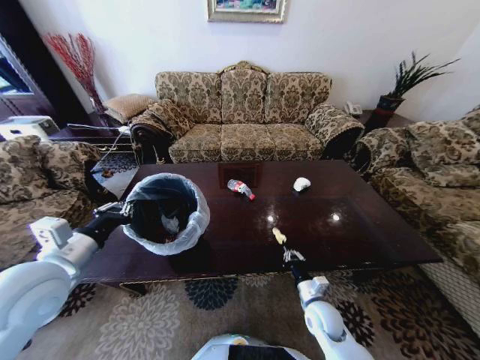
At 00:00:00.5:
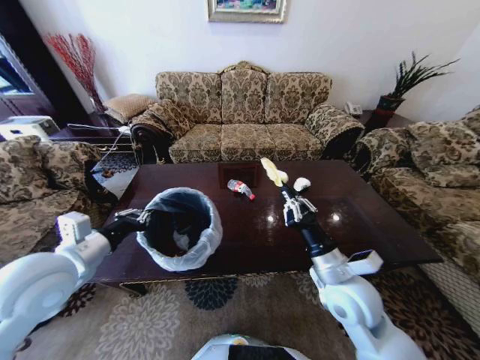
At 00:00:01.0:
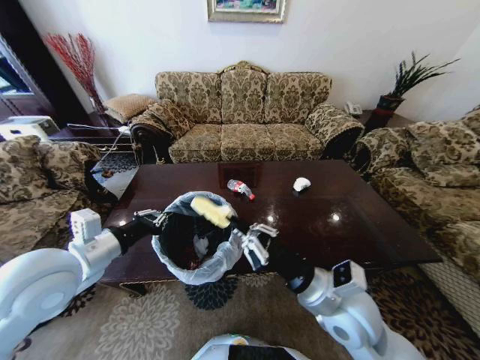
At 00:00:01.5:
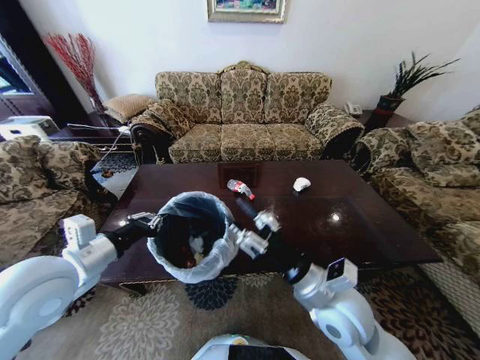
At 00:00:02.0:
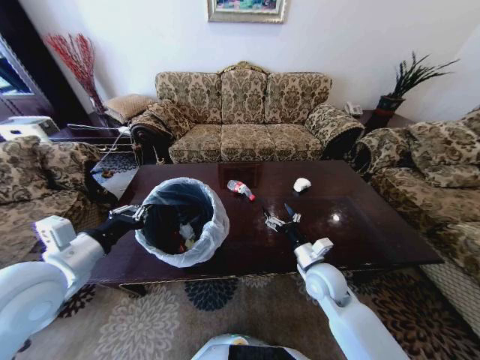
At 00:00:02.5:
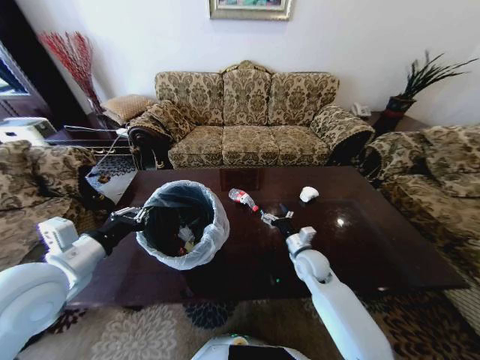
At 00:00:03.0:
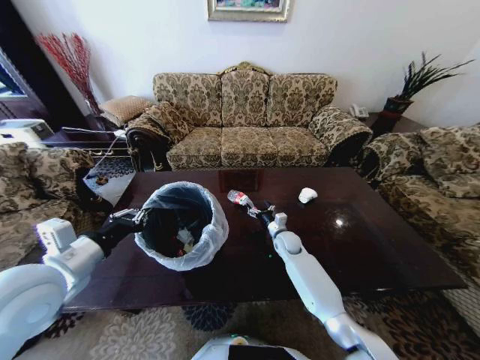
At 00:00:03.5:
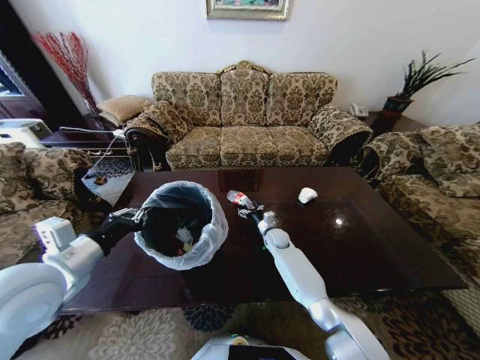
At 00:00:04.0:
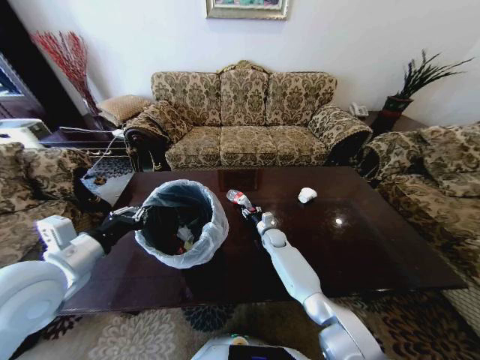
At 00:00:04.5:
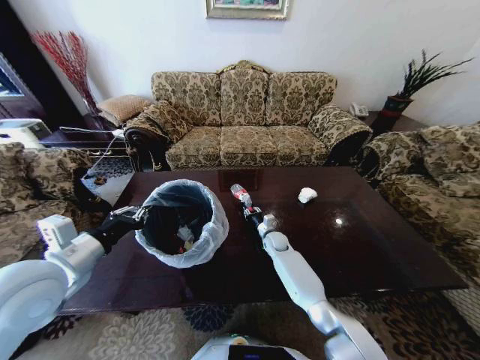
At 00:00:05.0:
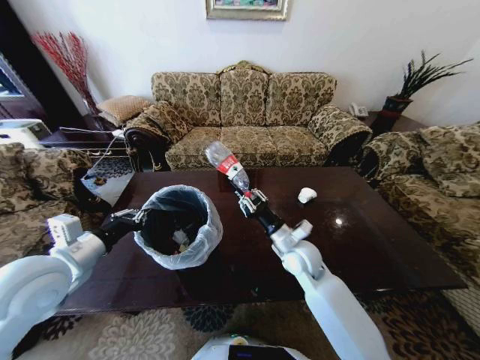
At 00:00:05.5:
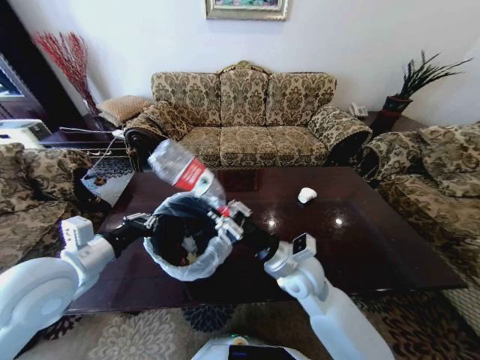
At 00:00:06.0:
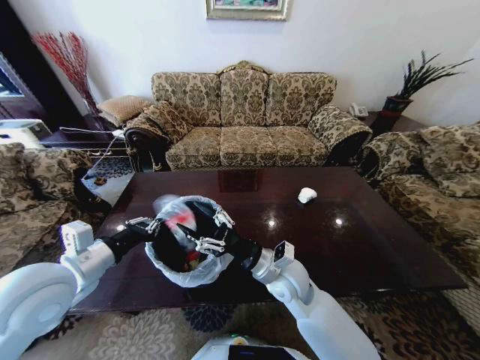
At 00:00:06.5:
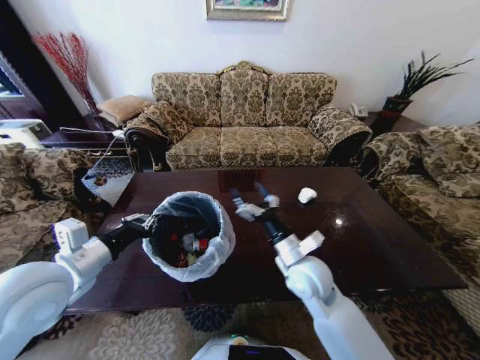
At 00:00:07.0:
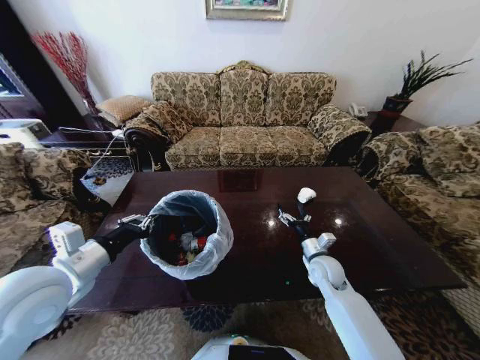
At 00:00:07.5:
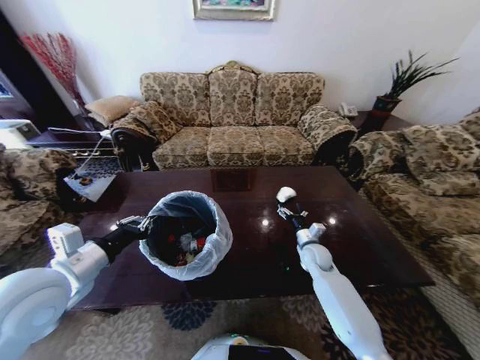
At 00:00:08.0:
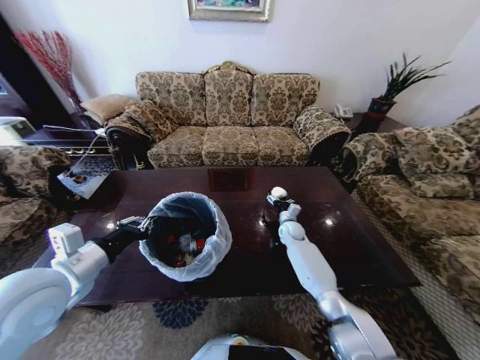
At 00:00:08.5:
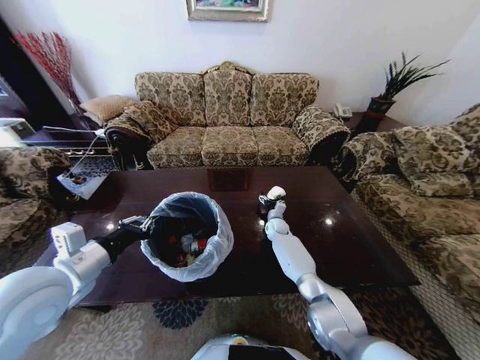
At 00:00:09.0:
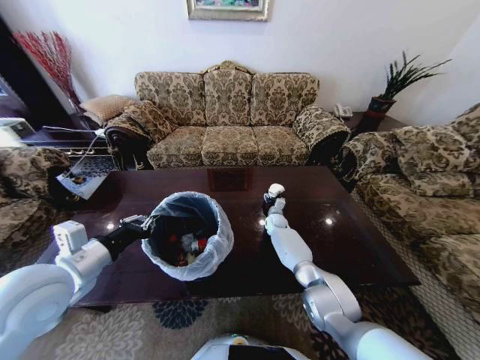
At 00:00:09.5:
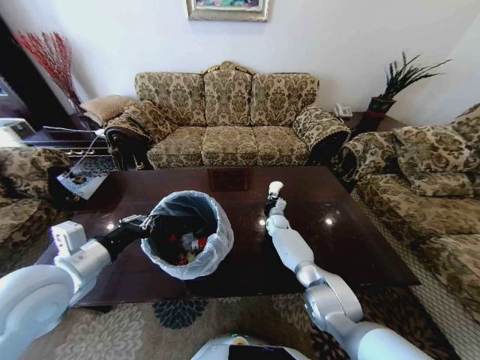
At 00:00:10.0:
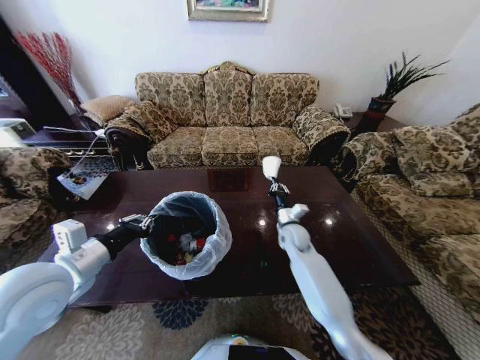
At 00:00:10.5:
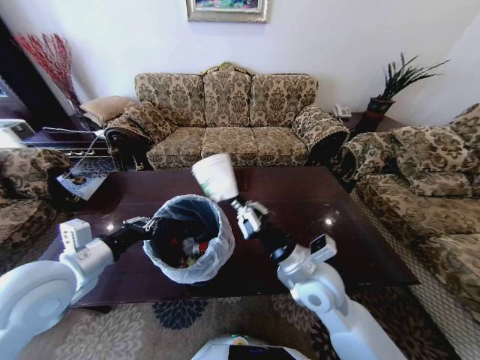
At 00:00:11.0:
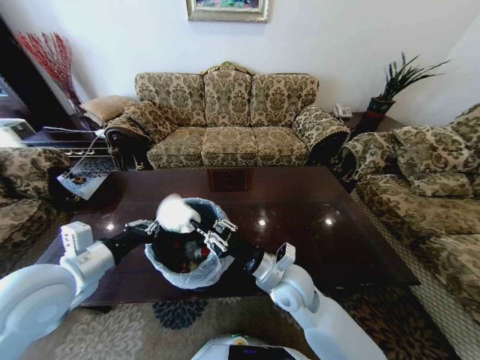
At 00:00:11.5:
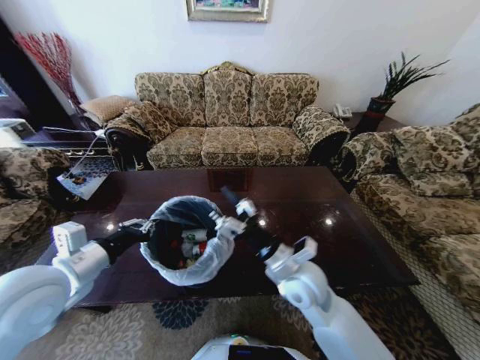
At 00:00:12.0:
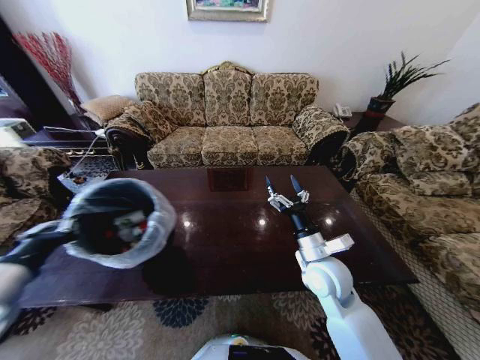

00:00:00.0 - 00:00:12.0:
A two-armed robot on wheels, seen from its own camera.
Task of the whole recording: Move to the front of the table and place the trash on the table into the trash bin.
00:00:00.0 - 00:00:02.0: The right gripper moves upward and forward, roughly 15 cm, and opens its fingers.
00:00:02.0 - 00:00:04.0: The right gripper is displaced forward and downward by roughly 25 cm, and closes its fingers.
00:00:04.0 - 00:00:06.0: The right gripper moves backward and upward, approximately 30 cm, and closes, then opens again.
00:00:06.0 - 00:00:08.0: The right gripper moves forward, downward and to the right, about 30 cm, and opens.
00:00:08.0 - 00:00:10.0: The right gripper travels upward and backward by roughly 10 cm, and closes.
00:00:10.0 - 00:00:12.0: The left gripper heads backward, covering roughly 5 cm. Meanwhile the right gripper goes about 20 cm backward and upward, and opens its fingers.

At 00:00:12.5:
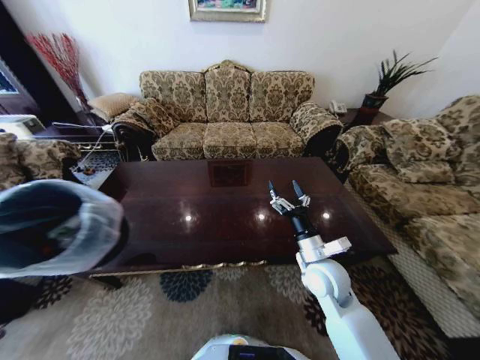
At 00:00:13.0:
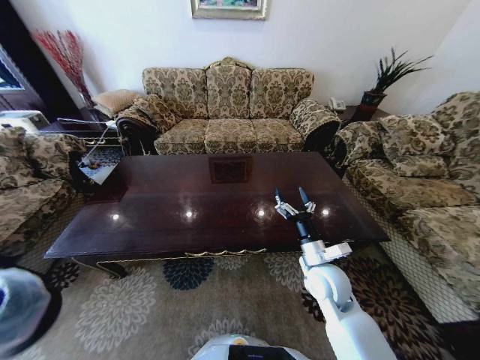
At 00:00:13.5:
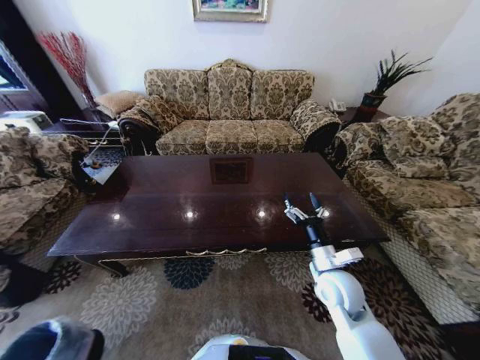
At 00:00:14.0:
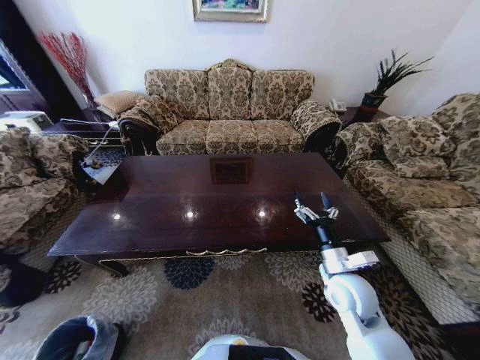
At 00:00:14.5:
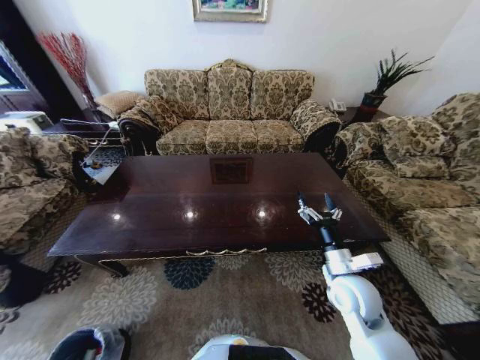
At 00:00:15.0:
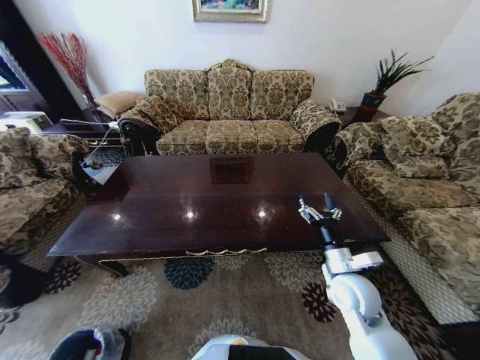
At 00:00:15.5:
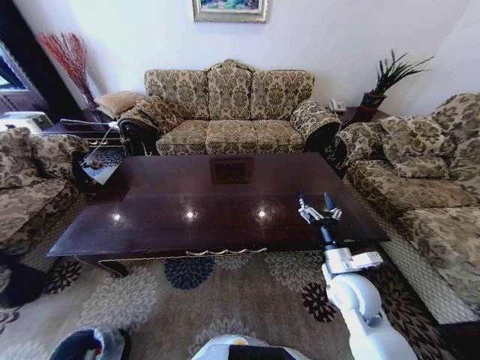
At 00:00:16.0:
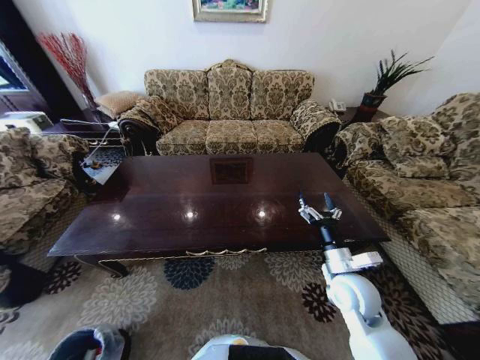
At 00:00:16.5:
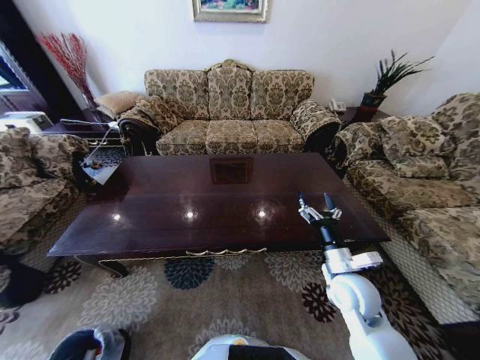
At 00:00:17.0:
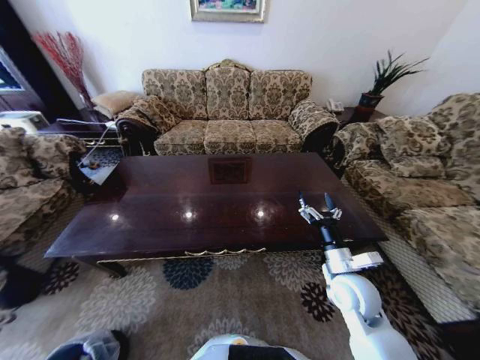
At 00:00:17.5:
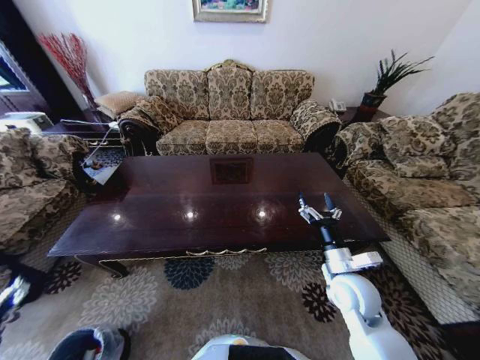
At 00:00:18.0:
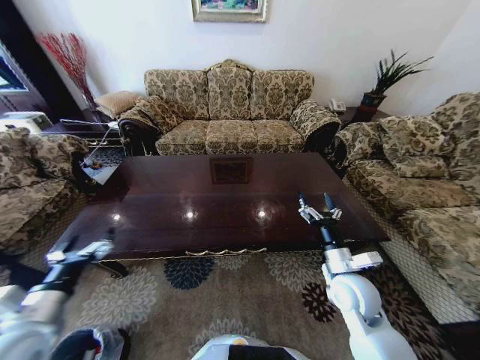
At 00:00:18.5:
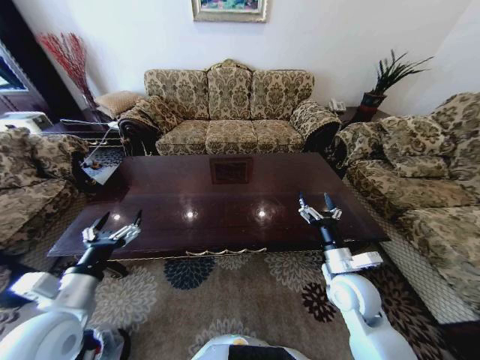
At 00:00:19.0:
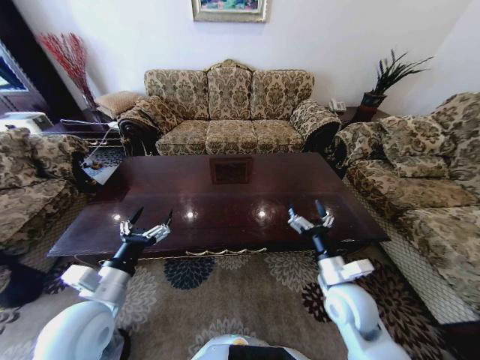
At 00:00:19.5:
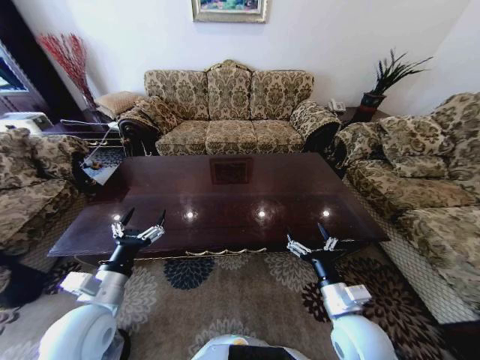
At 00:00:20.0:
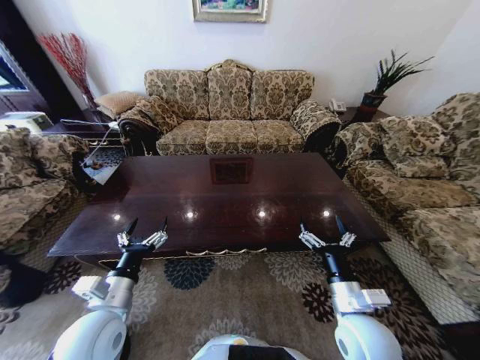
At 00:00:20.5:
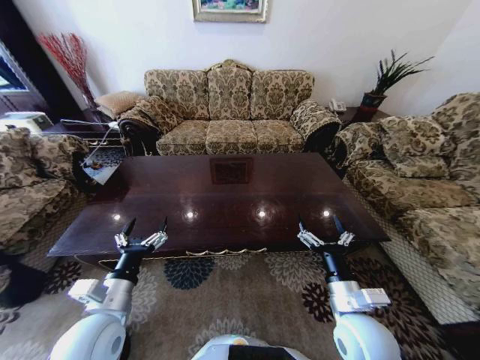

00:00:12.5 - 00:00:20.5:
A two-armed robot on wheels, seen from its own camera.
Task of the whole recording: Move to the front of the table and place the trash on the table into the trash bin.
00:00:12.5 - 00:00:14.5: The right gripper goes approximately 5 cm to the right, while the left gripper goes roughly 50 cm downward.
00:00:16.5 - 00:00:18.5: The left gripper heads upward, to the right and forward, covering some 50 cm.
00:00:18.5 - 00:00:20.5: The right gripper travels backward by roughly 10 cm. The left gripper is displaced to the right by about 5 cm.
